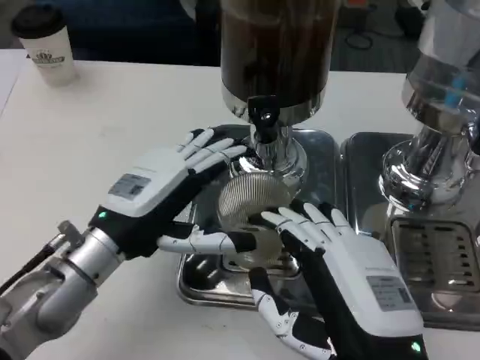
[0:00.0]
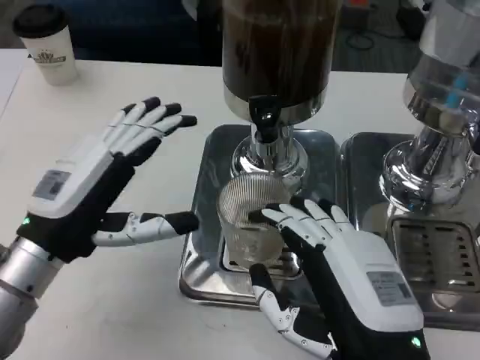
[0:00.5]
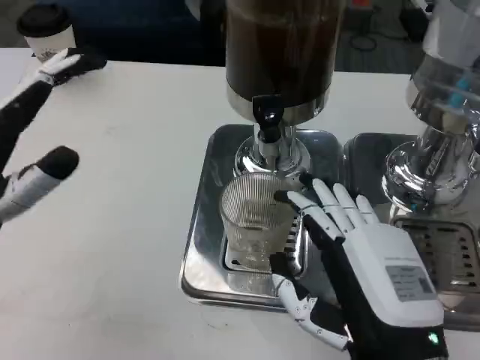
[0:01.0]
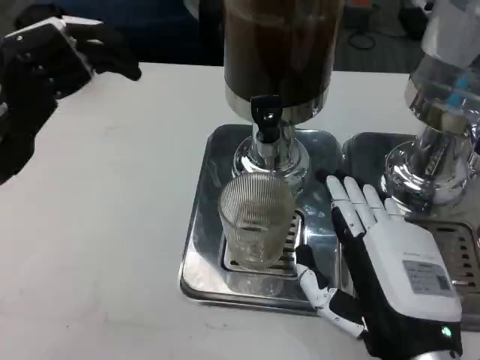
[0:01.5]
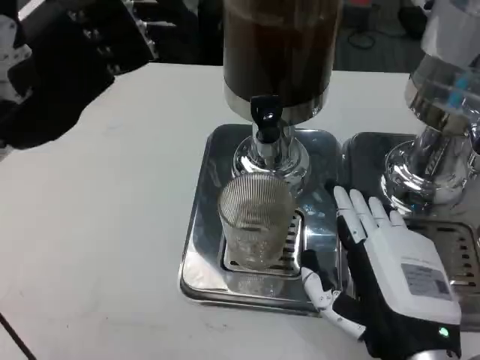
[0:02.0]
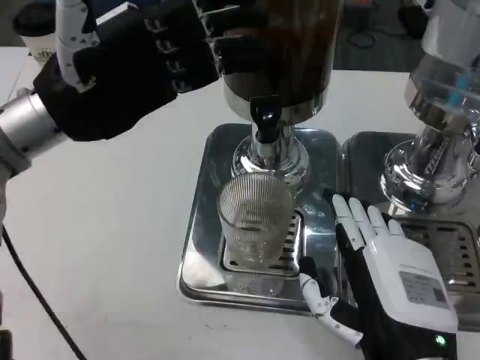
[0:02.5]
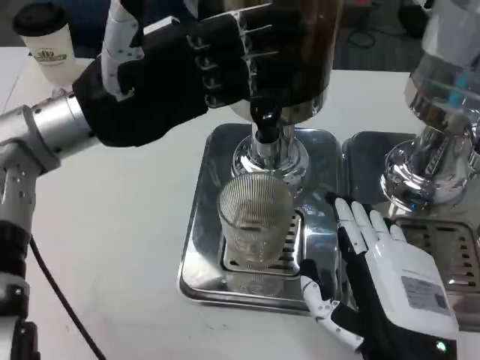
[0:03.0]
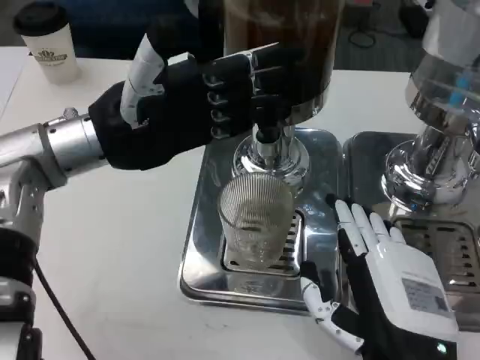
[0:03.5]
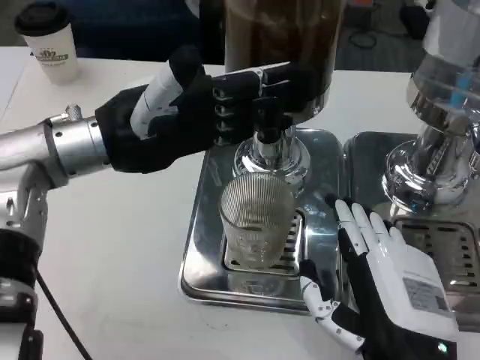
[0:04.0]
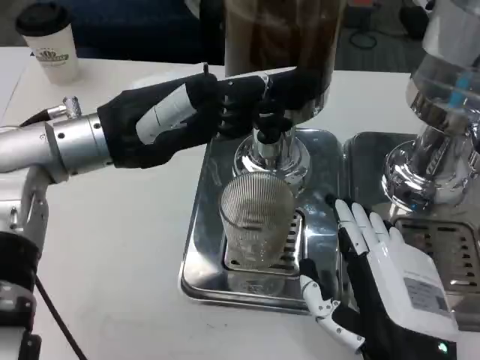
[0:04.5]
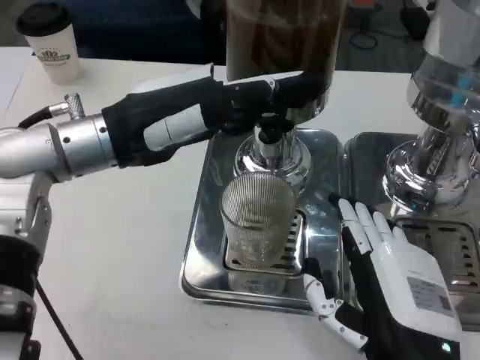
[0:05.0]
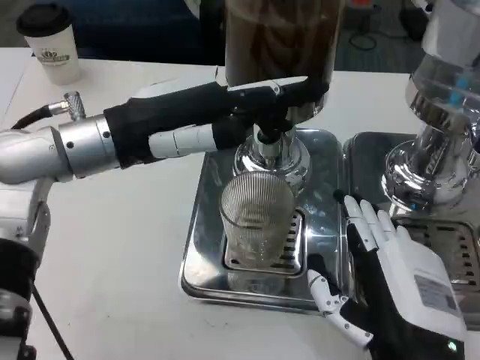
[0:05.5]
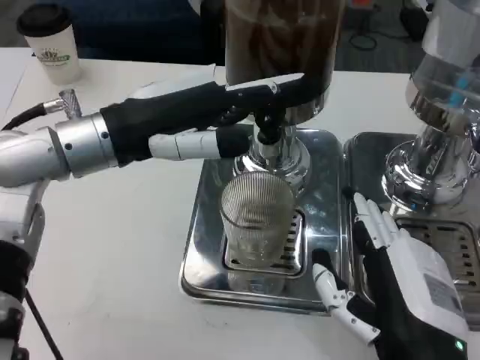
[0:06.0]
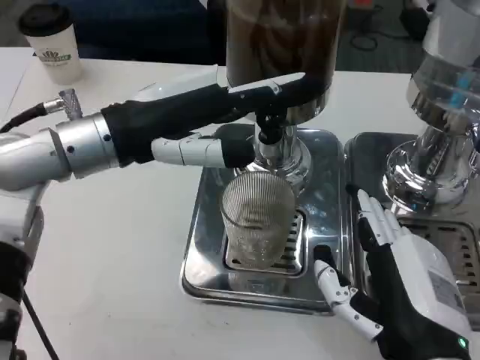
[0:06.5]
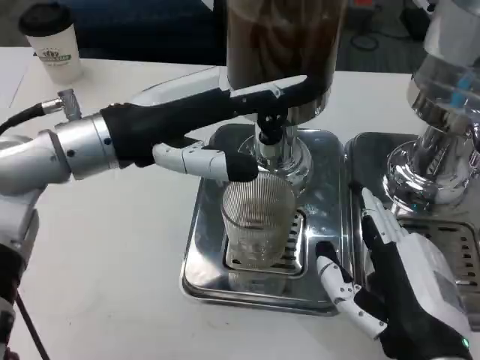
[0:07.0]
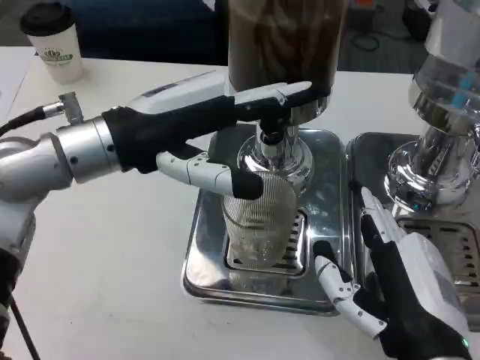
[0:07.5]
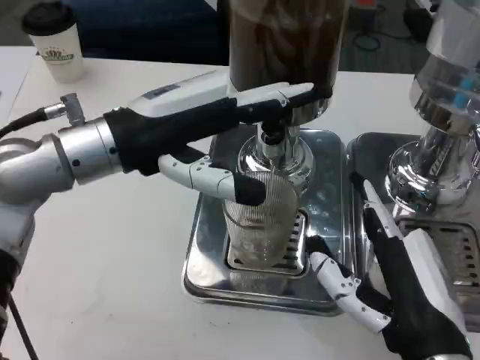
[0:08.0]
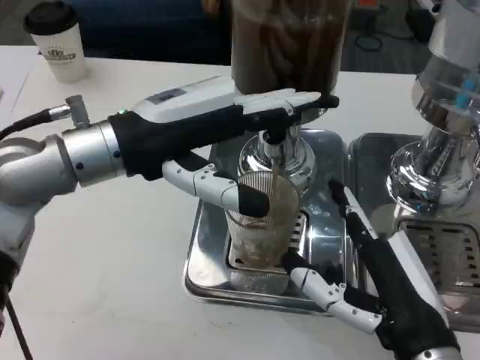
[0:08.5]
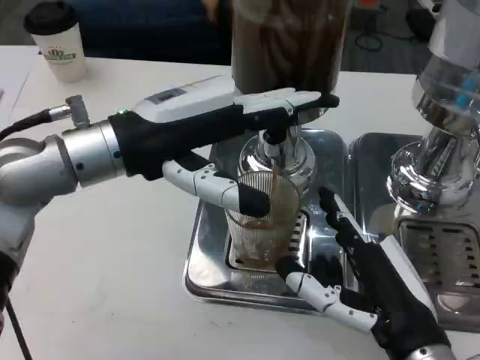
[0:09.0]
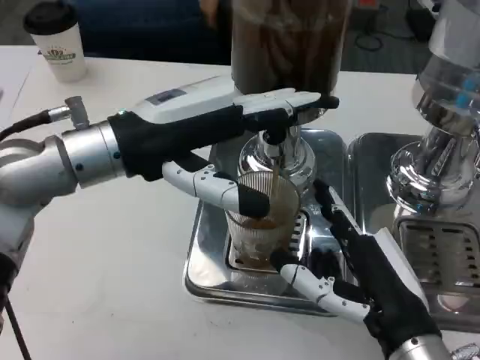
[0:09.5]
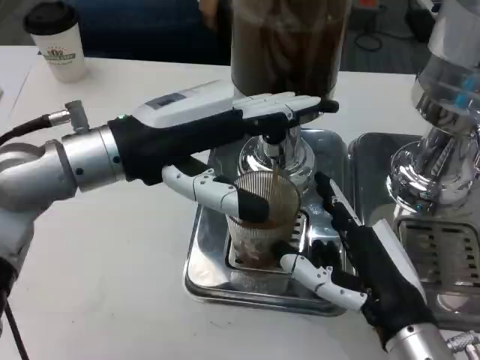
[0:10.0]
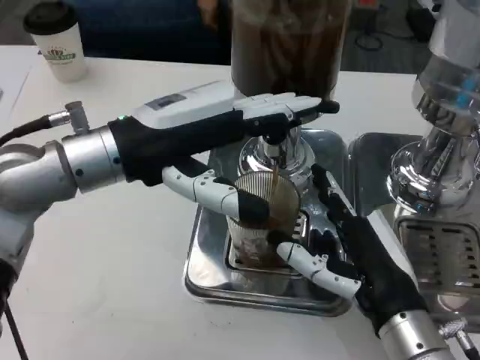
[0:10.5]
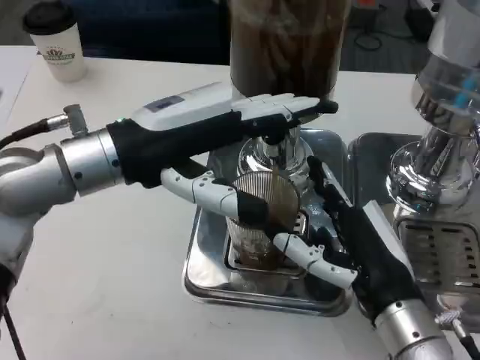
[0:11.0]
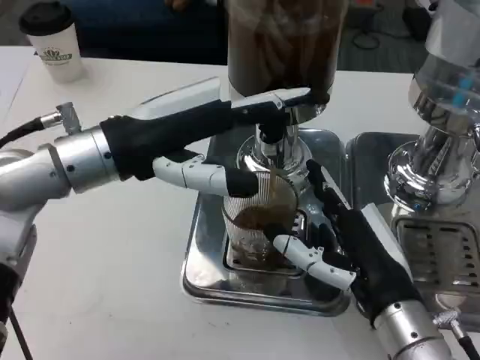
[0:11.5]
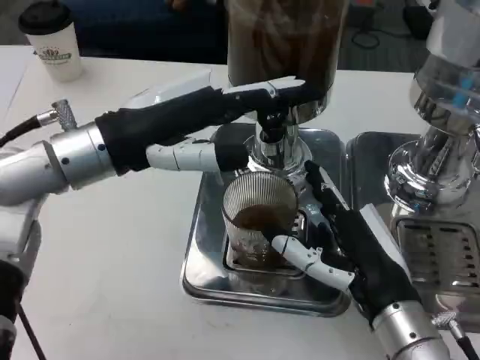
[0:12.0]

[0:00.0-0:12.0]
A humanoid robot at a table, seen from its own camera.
Task of the whole recording: Grasp the cup under the faucet to collect the drink, then remove the cup.
0:00.0 to 0:02.0: The left hand goes roughly 15 cm upward and to the left.
0:02.0 to 0:04.0: The left hand moves to the right, roughly 5 cm.

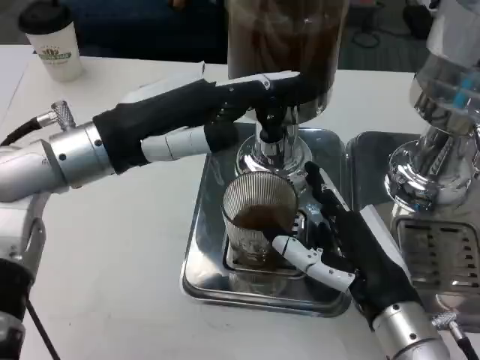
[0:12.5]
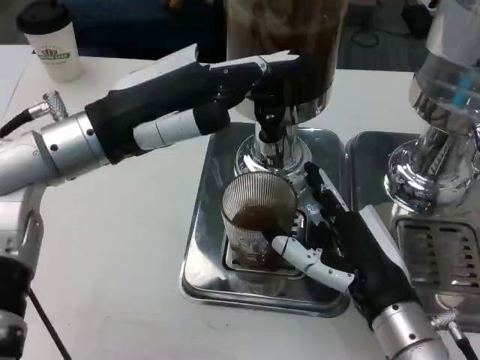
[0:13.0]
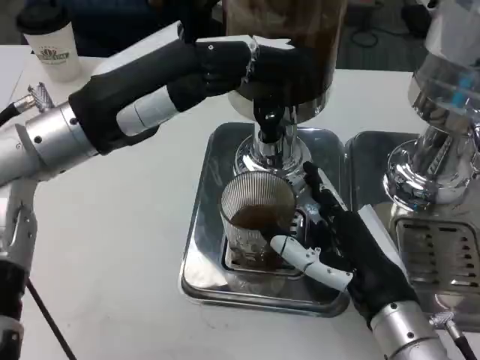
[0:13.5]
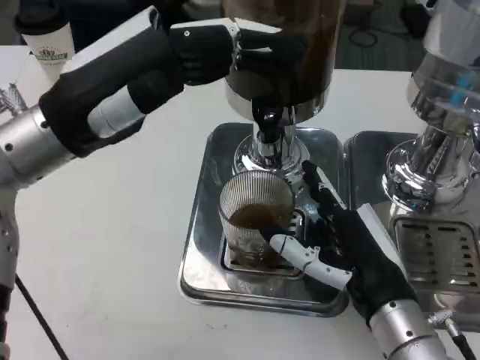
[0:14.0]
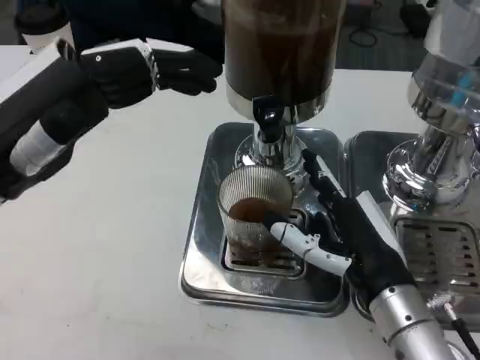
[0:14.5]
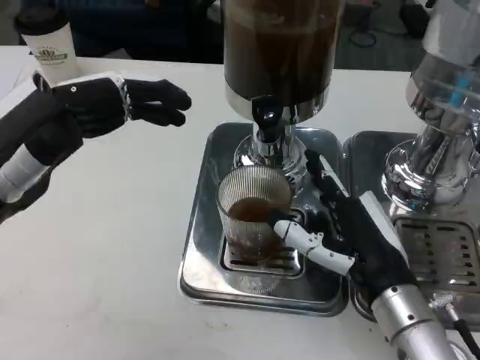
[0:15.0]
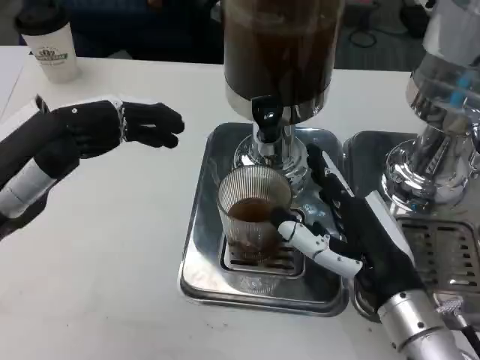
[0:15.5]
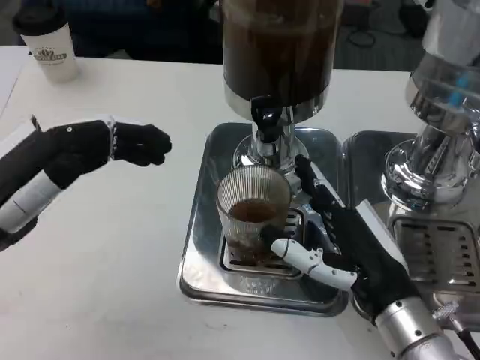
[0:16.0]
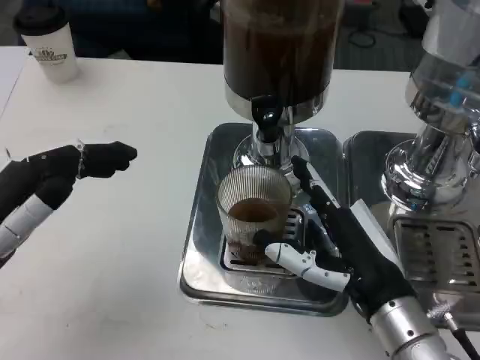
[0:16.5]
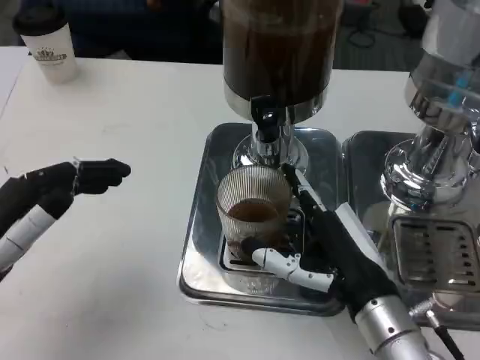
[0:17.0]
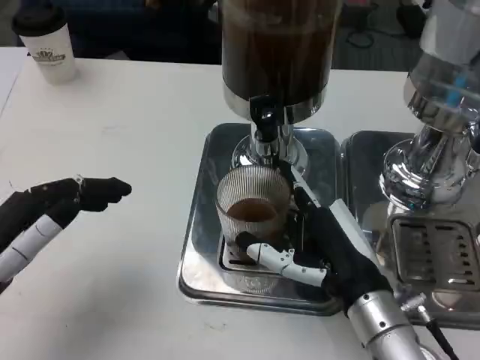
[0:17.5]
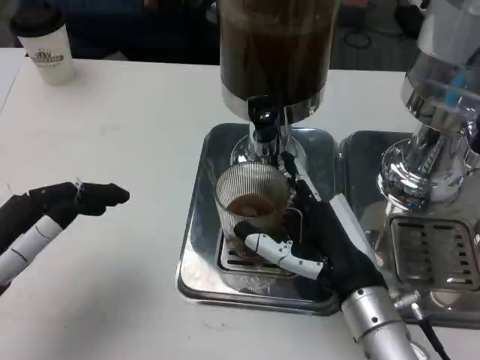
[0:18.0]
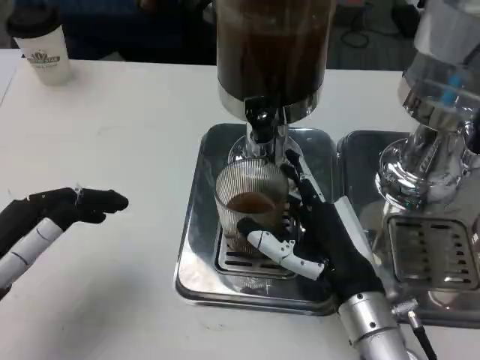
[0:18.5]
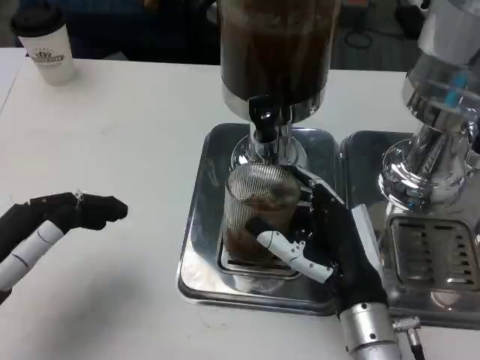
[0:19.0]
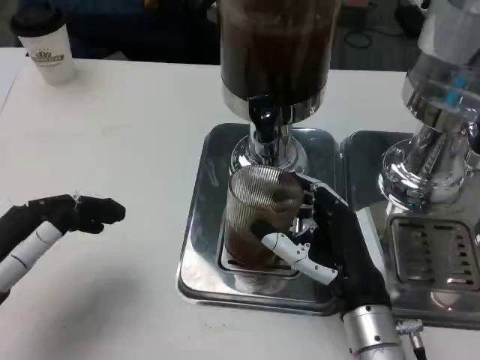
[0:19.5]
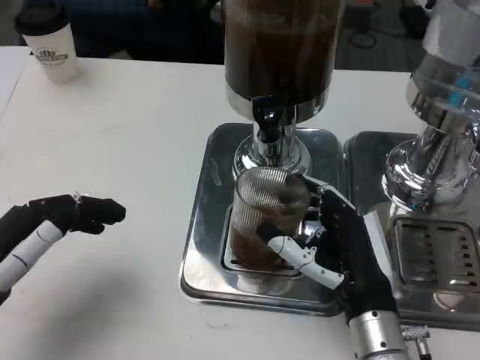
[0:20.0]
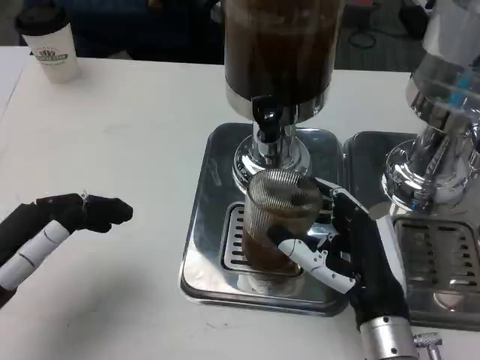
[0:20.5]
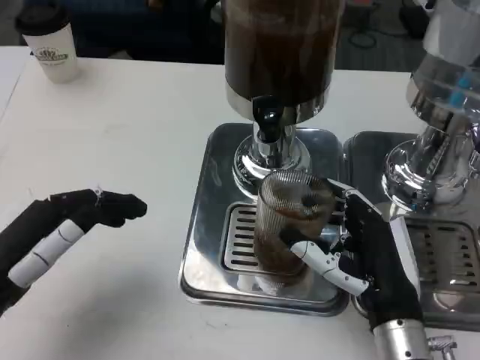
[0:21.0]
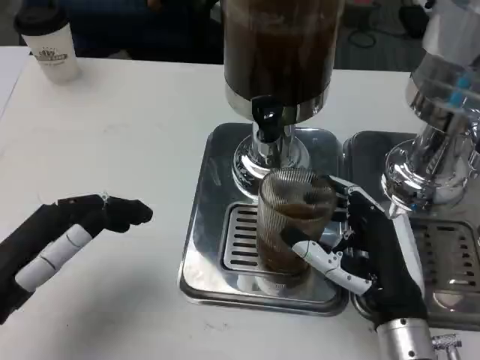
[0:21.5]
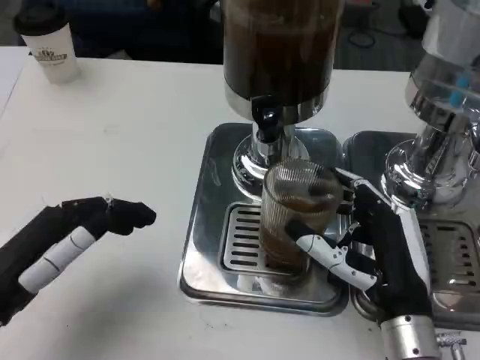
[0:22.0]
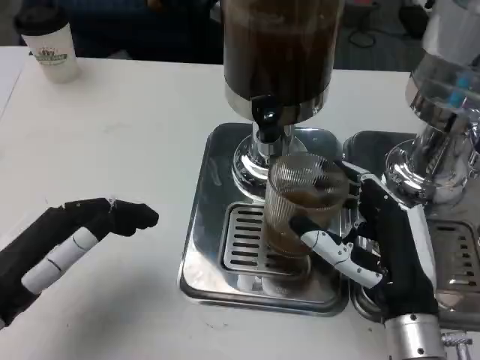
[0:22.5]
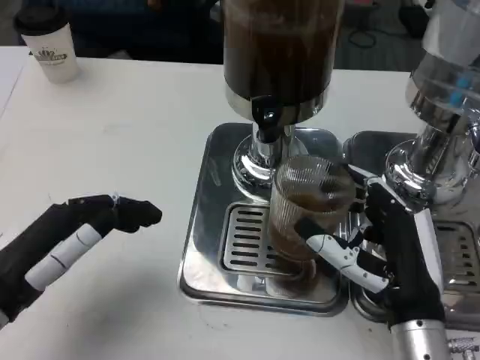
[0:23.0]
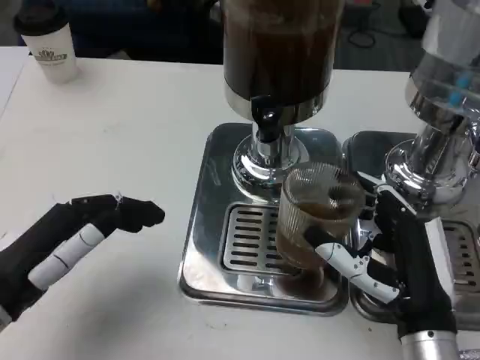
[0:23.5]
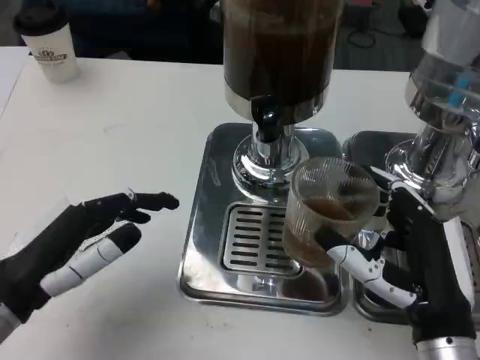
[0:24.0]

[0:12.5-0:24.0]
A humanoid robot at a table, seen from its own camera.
Task of the whole recording: Grasp the cup under the faucet to collect the drink, then remove the cup.
0:12.5 to 0:14.5: The left hand moves backward and to the left, approximately 10 cm.
0:14.5 to 0:16.5: The left hand is displaced downward and backward by some 10 cm.

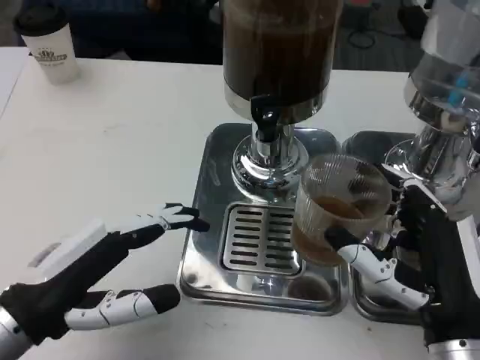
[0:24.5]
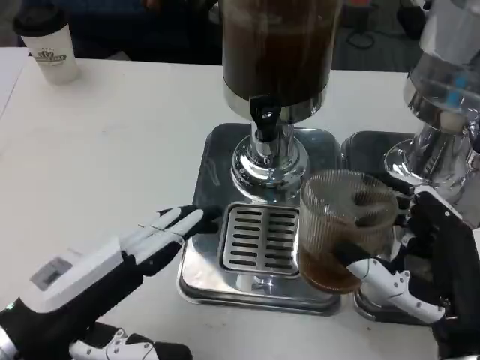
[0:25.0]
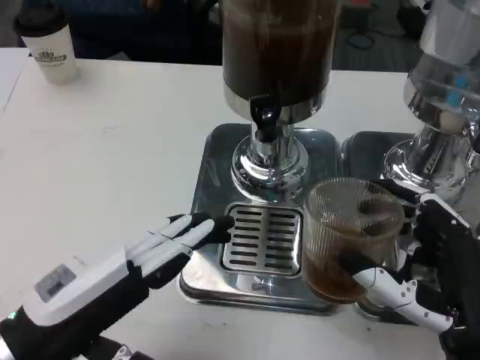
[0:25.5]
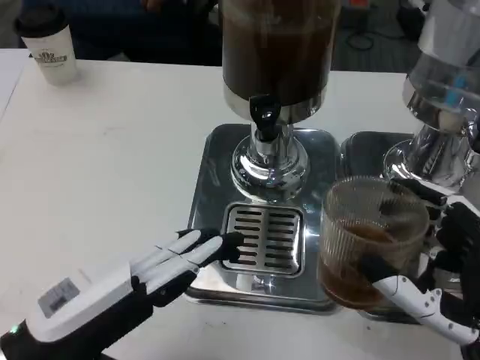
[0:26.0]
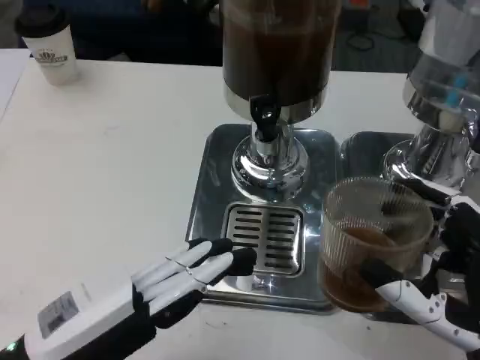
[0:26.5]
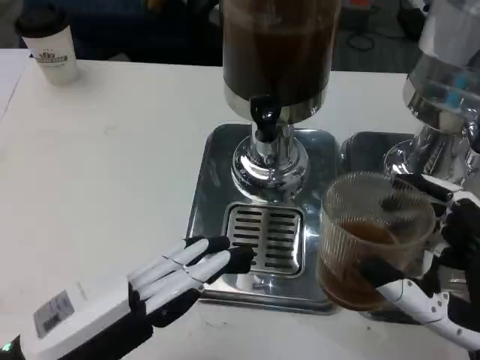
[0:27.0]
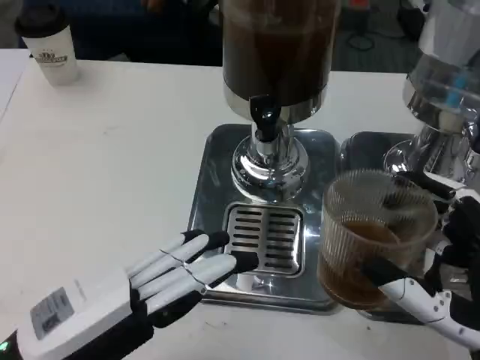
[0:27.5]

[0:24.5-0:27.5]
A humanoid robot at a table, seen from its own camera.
Task of the whole recording: Grasp the cup under the faucet to collect the drink, then remove the cup.
0:24.5 to 0:26.0: The right hand shifts by some 5 cm.
0:26.0 to 0:27.5: The hands stay close to where they were, moving slightly.
